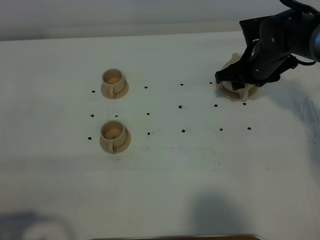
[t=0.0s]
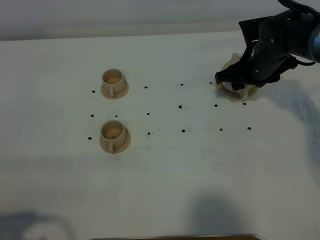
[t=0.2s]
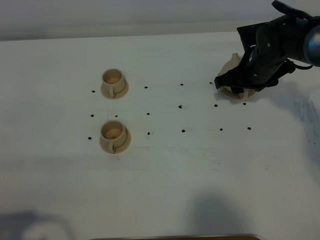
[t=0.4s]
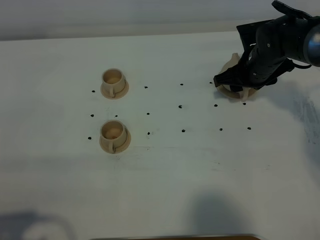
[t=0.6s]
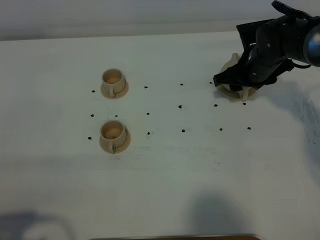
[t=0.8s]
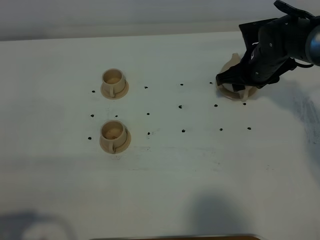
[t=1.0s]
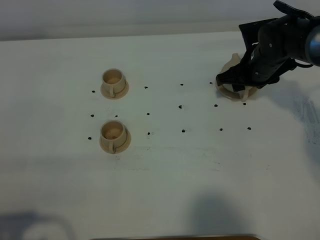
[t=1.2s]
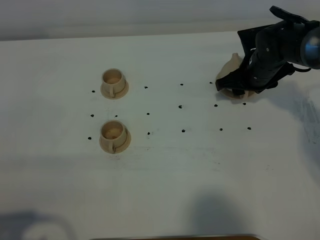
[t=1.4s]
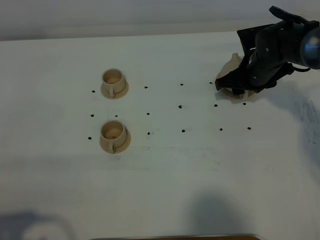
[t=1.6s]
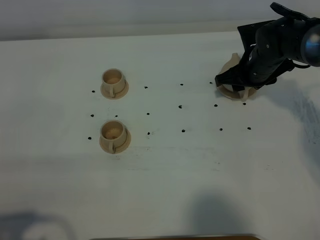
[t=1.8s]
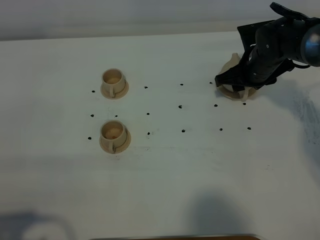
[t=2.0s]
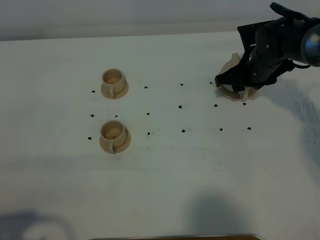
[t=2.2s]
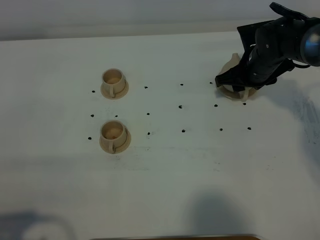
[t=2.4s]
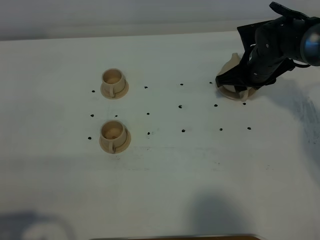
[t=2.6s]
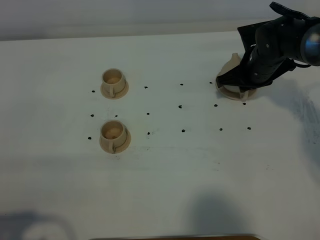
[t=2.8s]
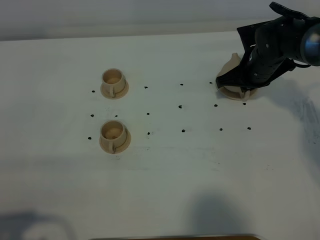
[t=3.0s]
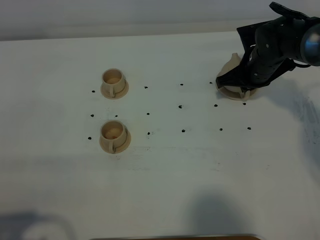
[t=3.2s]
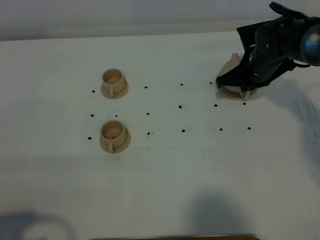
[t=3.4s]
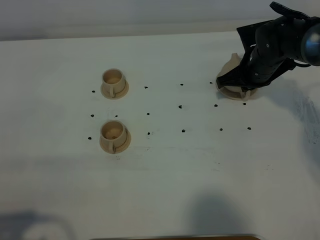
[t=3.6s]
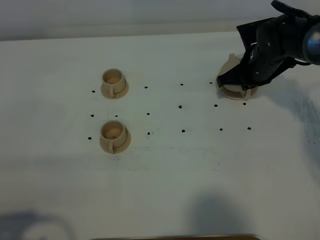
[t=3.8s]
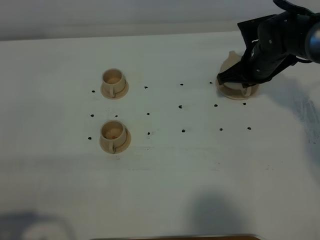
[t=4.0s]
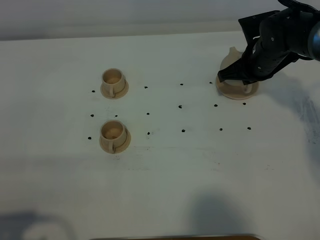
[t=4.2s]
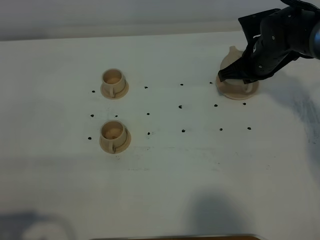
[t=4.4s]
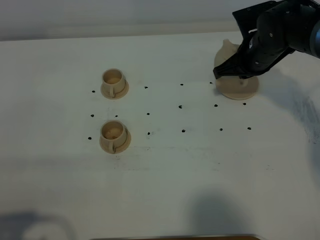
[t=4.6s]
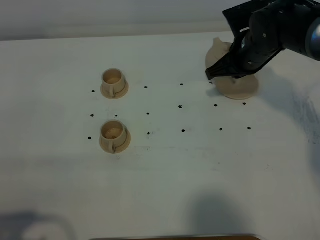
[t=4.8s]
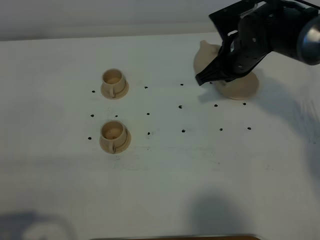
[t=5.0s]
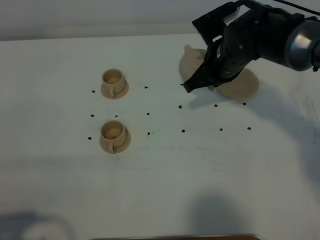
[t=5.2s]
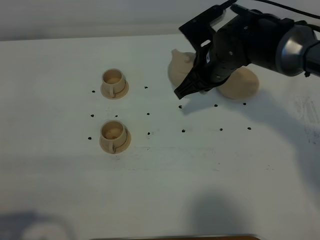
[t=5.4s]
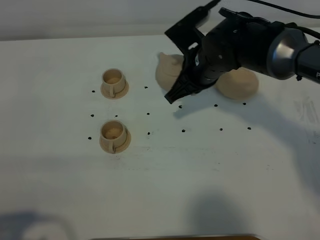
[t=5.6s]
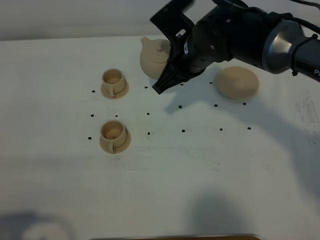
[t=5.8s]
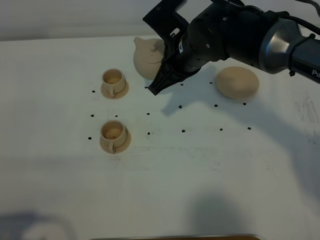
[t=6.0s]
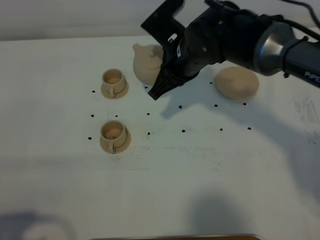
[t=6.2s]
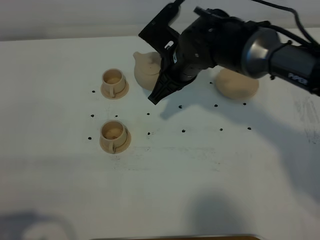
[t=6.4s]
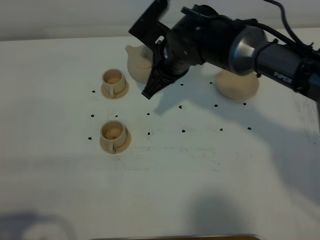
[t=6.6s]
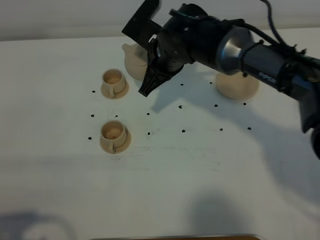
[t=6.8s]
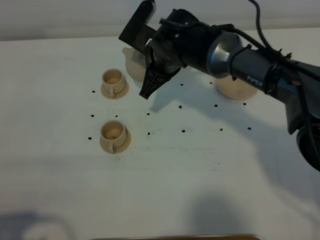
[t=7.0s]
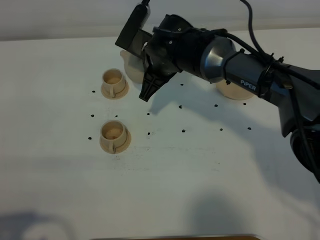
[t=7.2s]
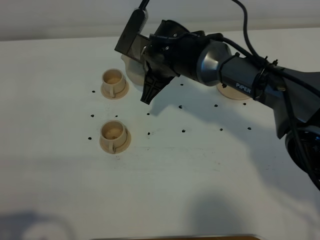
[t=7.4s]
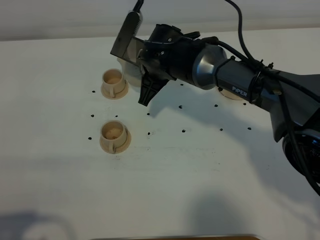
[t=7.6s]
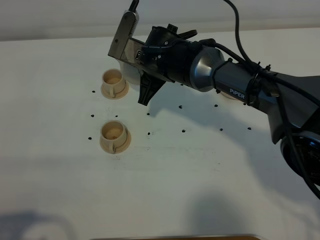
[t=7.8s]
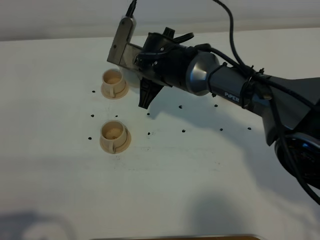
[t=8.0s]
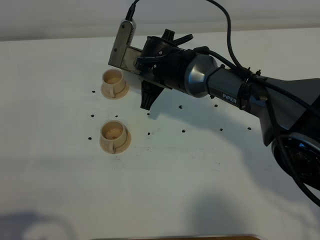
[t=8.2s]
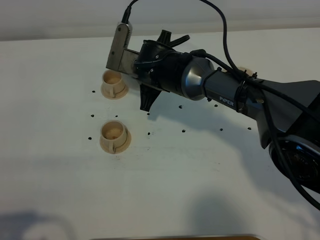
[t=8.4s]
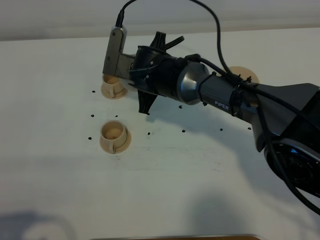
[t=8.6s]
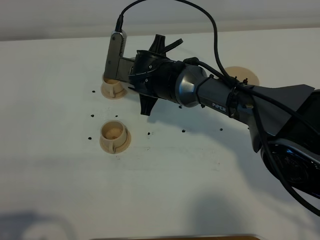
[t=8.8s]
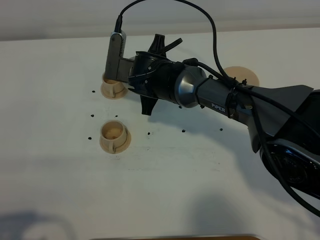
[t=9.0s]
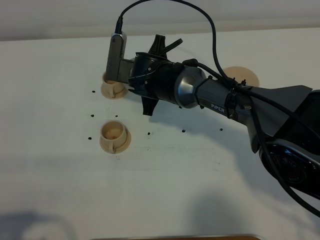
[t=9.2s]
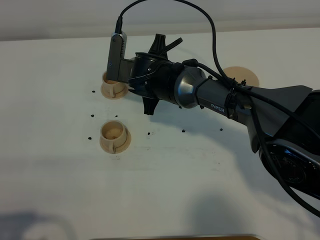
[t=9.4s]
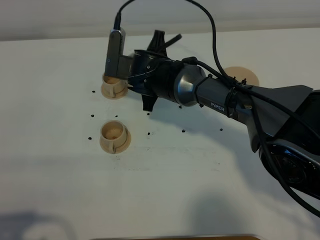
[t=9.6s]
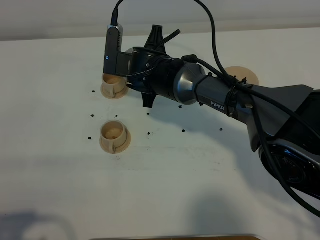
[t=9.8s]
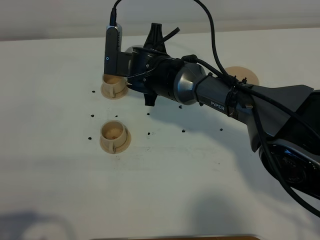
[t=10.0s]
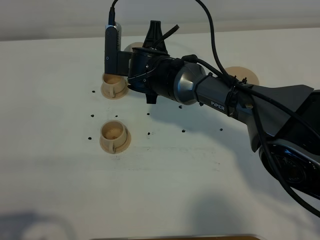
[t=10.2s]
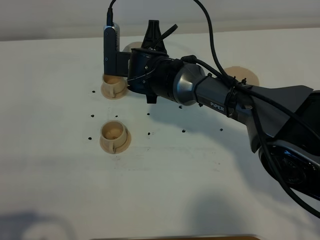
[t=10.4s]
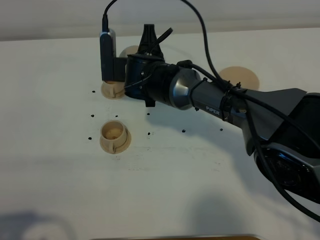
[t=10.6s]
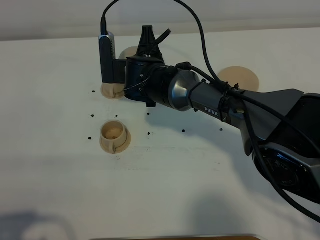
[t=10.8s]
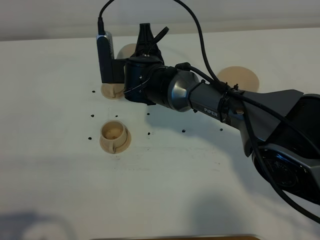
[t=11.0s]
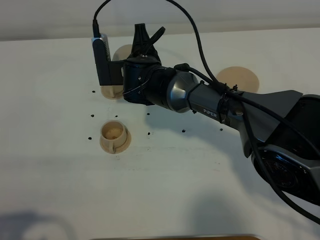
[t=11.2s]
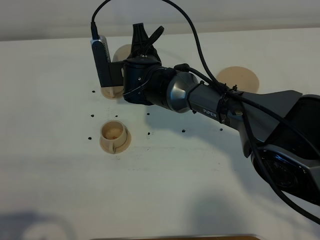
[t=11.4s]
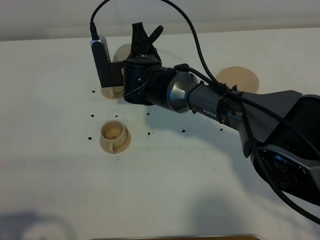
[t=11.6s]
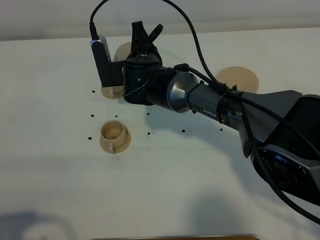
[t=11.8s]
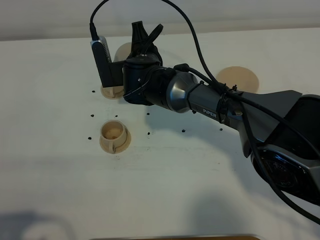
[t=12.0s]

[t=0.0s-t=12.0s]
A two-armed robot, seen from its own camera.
Task of the whole recording: grasp the brown teapot and pour the tea into the two brown teacups one by one, put the brown teapot back in its original place.
Step, t=0.0s to t=4.4s: Pick up the teapot with the right gripper.
t=0.0s to t=1.6s: The grippers make only small movements.
t=1.6s to t=3.0s: The right gripper closes up.
t=3.0s to t=4.4s: There are only small adjustments of the grippers.
t=4.4s to t=6.0s: The right gripper shifts approximately 15 cm to the left and upward.
t=6.0s to t=7.6s: The right gripper travels to the left and downward by about 10 cm.
t=7.6s to t=9.0s: The grippers move only a little.
t=9.0s to t=10.4s: The grippers move only a little.
t=10.4s to t=12.0s: The grippers make only small movements.

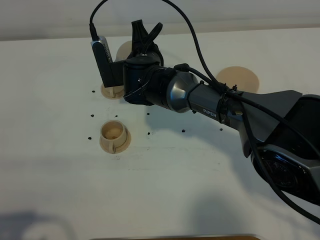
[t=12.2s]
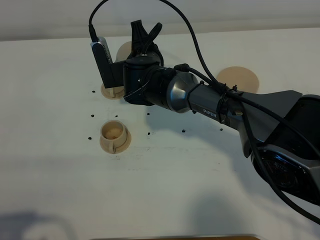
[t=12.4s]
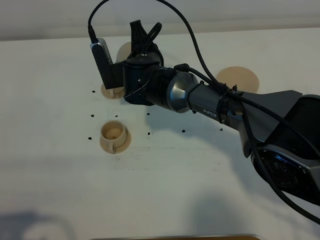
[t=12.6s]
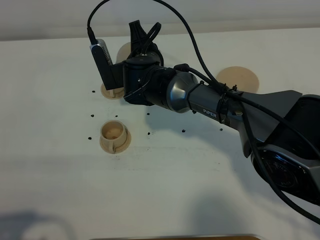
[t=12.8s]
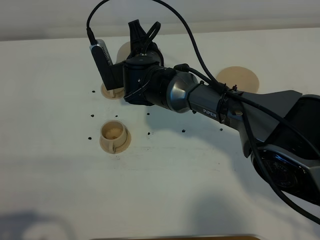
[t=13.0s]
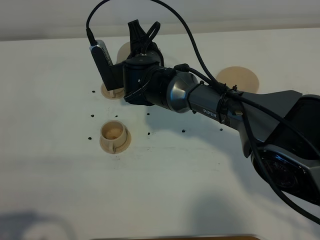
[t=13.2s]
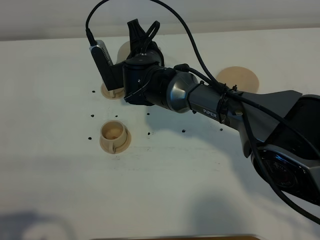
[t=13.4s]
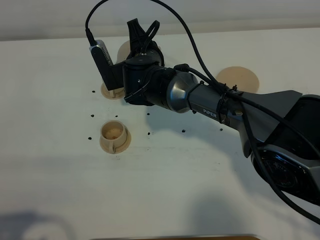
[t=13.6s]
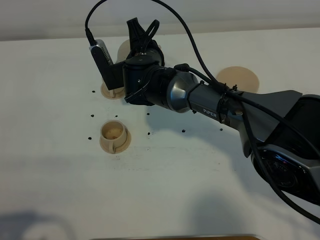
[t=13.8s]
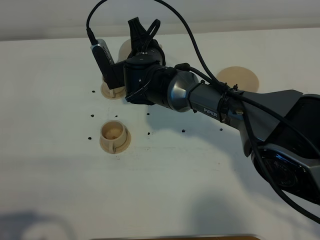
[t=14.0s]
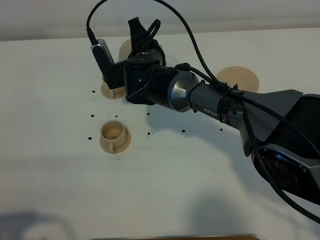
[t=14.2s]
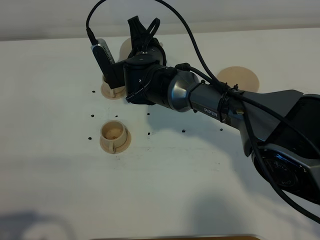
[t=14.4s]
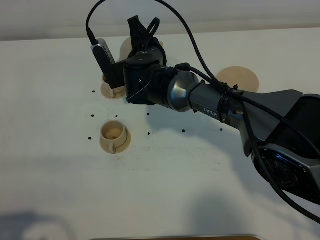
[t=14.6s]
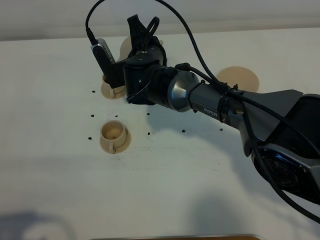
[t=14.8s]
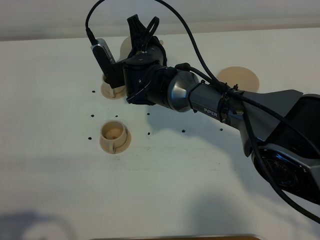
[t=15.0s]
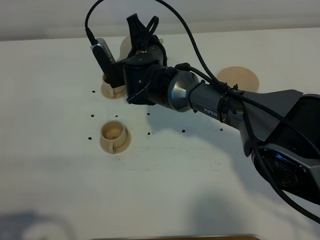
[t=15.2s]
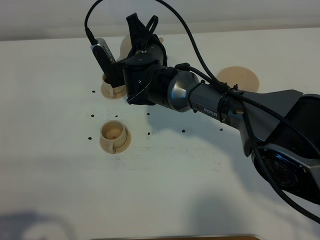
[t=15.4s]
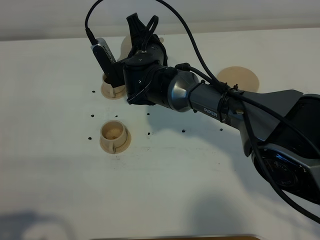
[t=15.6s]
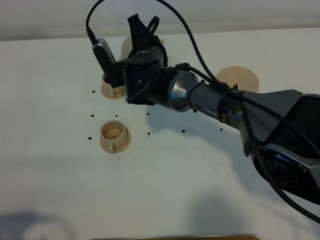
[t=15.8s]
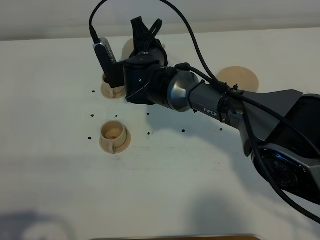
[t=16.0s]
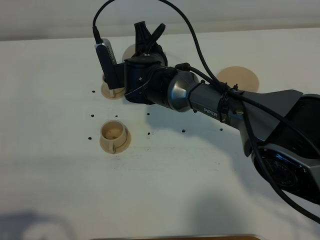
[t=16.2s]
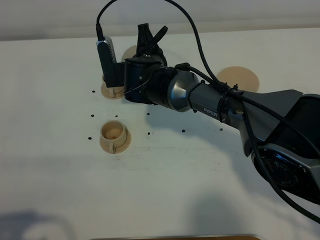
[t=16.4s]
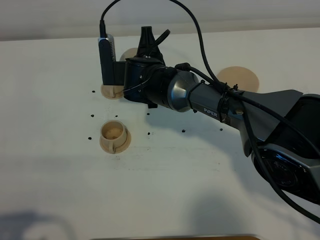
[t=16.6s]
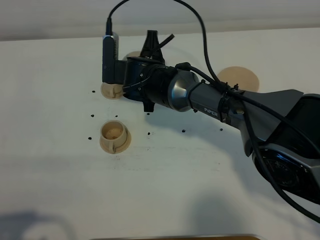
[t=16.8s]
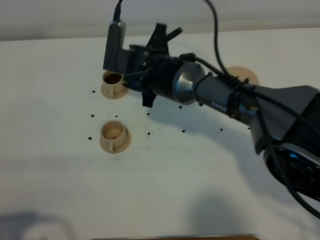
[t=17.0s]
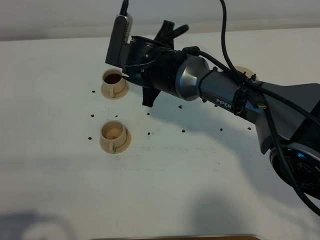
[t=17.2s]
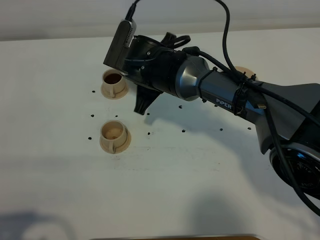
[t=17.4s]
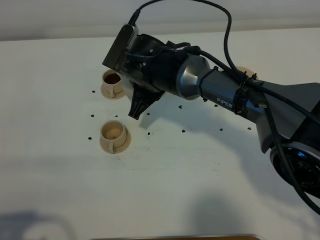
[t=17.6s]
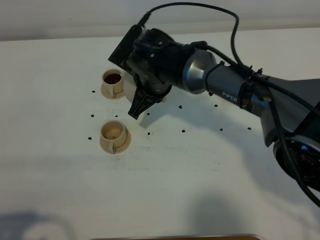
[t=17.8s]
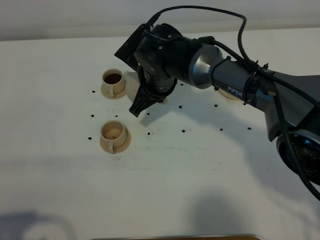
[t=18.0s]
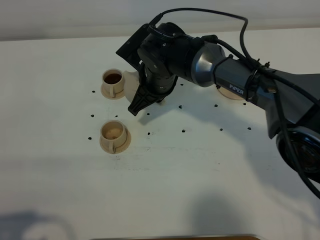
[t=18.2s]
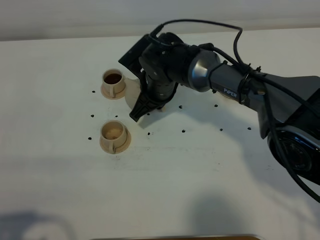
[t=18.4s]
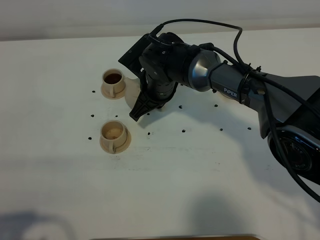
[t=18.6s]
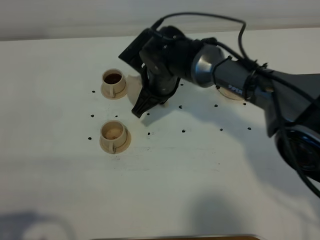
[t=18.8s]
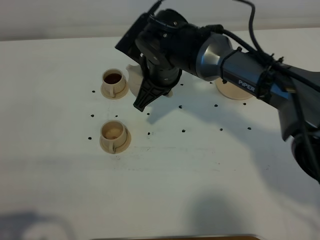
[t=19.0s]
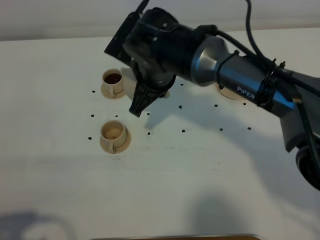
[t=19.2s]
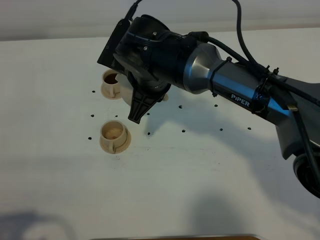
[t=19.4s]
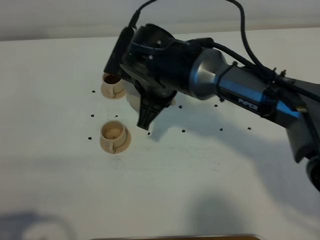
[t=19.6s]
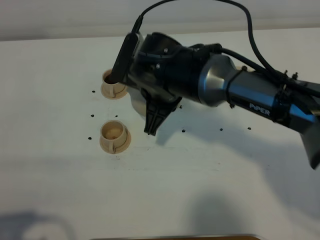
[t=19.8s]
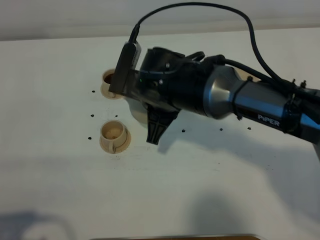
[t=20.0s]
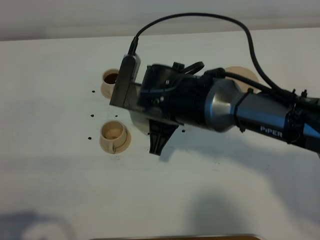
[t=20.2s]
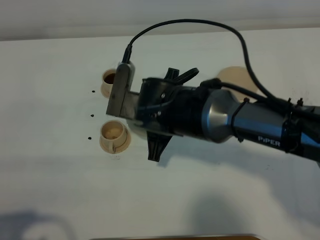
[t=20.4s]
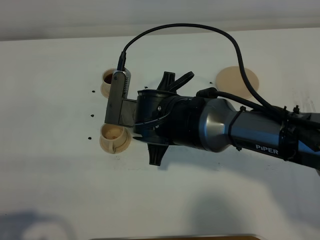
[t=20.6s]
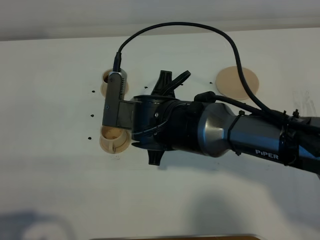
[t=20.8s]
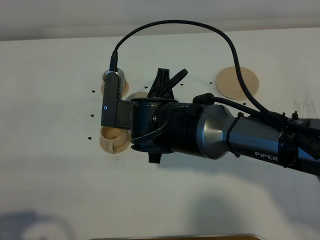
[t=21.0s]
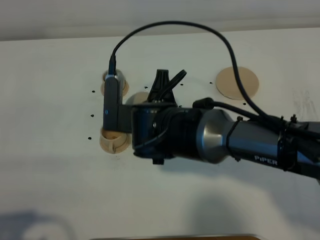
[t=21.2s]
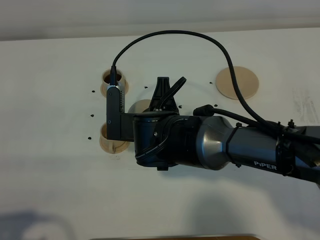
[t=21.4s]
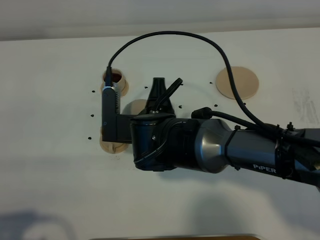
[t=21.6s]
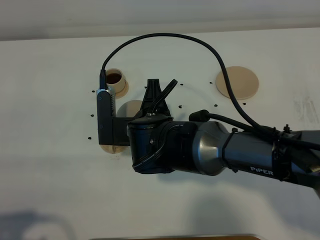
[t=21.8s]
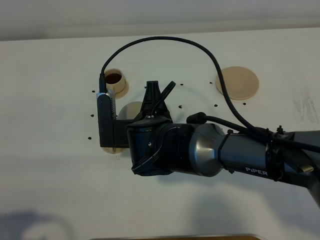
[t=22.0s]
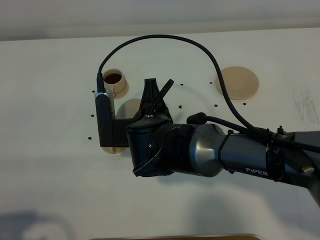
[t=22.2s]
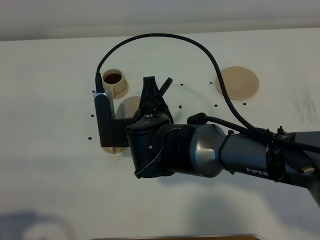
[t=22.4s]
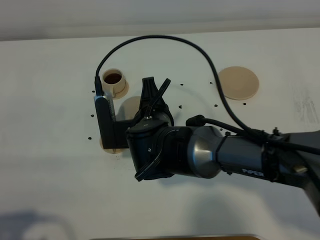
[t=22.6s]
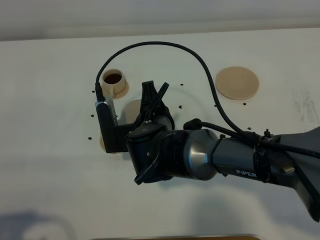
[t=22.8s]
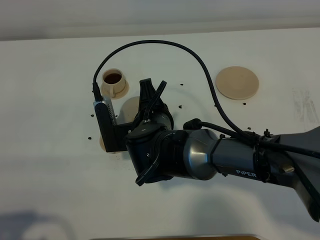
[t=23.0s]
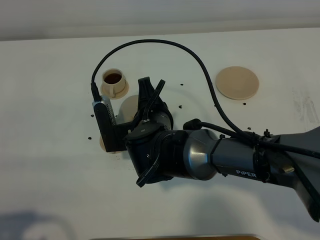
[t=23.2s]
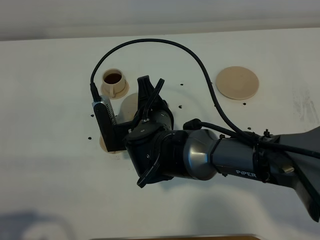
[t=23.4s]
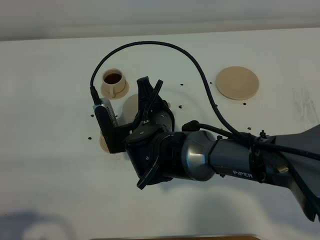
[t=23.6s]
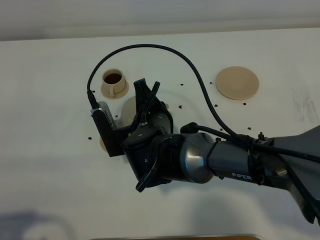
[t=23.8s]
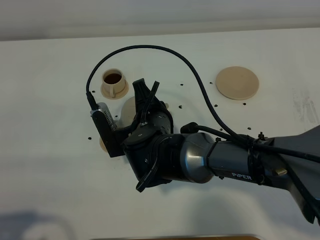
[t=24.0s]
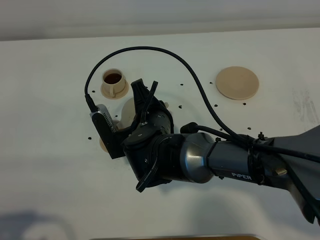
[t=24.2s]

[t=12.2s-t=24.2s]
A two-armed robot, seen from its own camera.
Task of the whole recording: grasp the brown teapot and pour the tea into the two brown teacups one by one, put the brown teapot back in its original place.
t=12.2s to t=13.8s: There are only small adjustments of the grippers.
t=13.8s to t=15.2s: The two grippers keep their place.
t=18.2s to t=19.8s: The right gripper travels backward by about 5 cm.
t=19.8s to t=21.2s: The right gripper shifts roughly 5 cm backward.
t=21.2s to t=22.6s: The grippers make only small movements.
t=22.6s to t=24.2s: The grippers move only a little.
